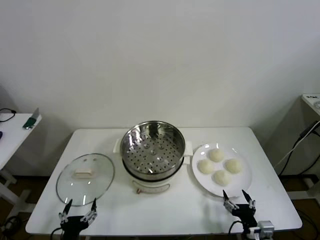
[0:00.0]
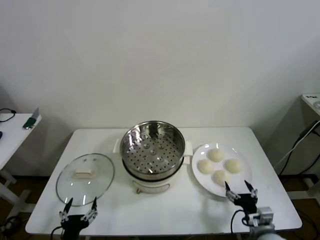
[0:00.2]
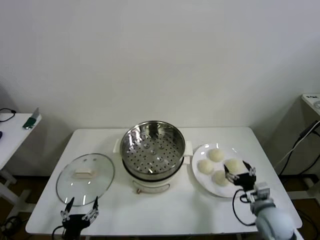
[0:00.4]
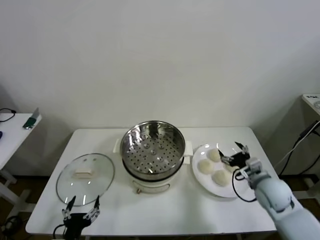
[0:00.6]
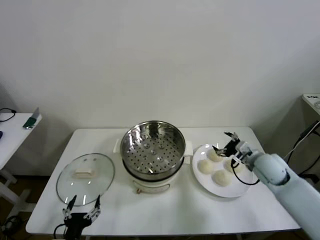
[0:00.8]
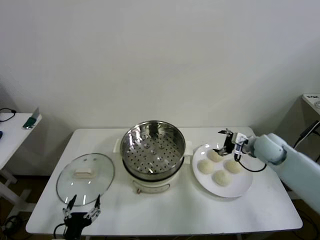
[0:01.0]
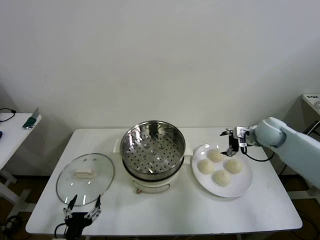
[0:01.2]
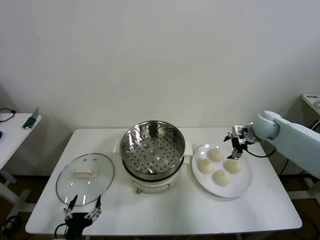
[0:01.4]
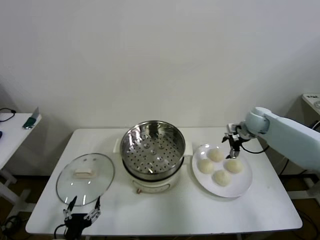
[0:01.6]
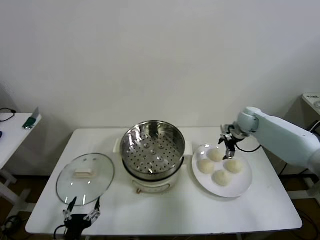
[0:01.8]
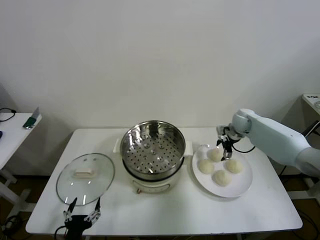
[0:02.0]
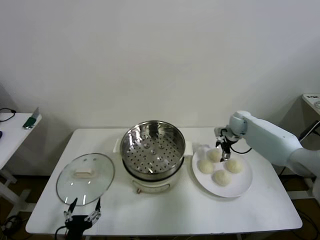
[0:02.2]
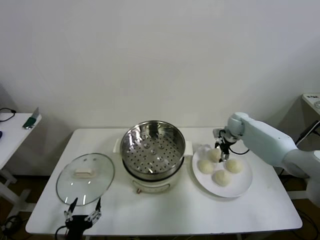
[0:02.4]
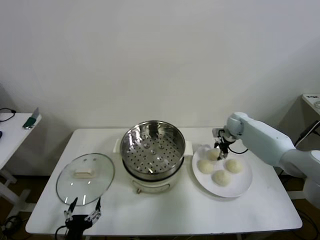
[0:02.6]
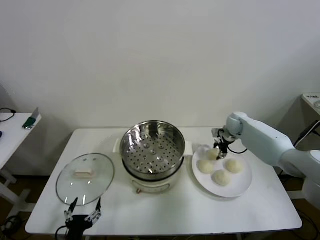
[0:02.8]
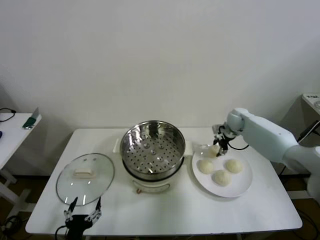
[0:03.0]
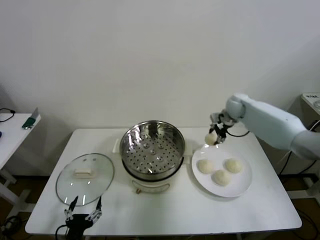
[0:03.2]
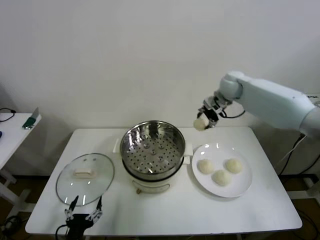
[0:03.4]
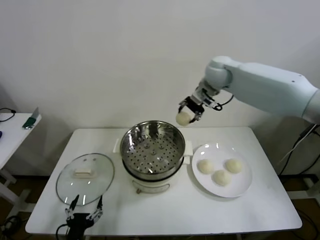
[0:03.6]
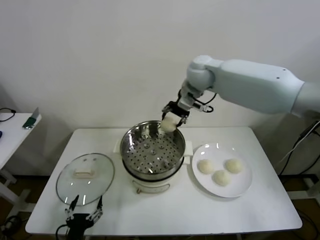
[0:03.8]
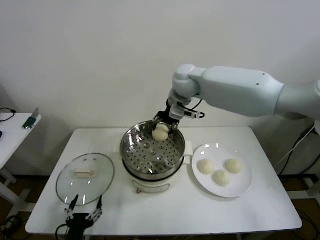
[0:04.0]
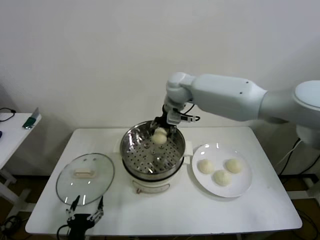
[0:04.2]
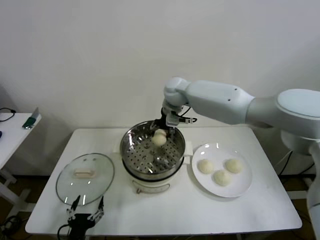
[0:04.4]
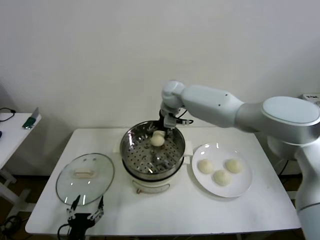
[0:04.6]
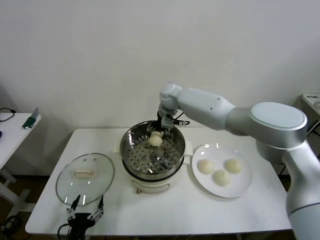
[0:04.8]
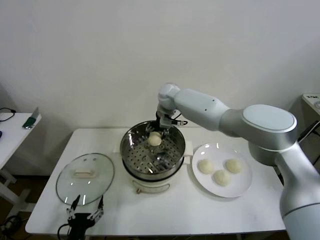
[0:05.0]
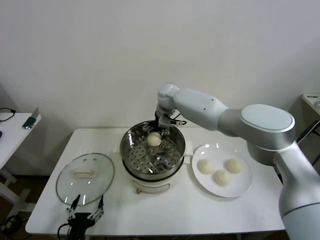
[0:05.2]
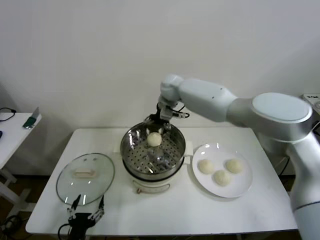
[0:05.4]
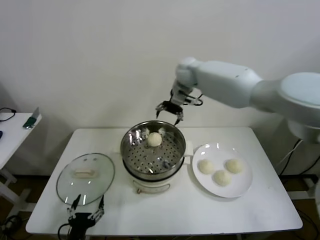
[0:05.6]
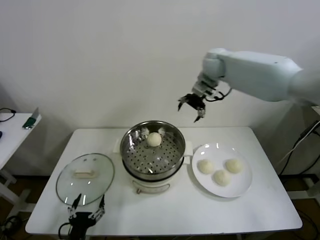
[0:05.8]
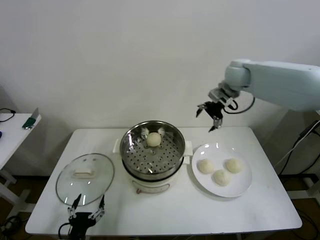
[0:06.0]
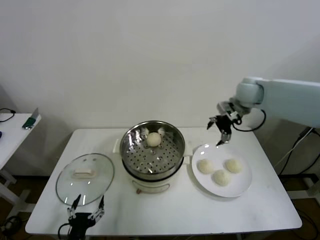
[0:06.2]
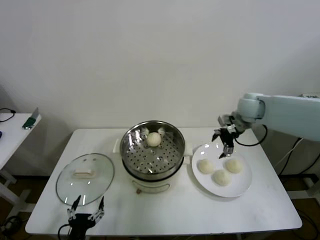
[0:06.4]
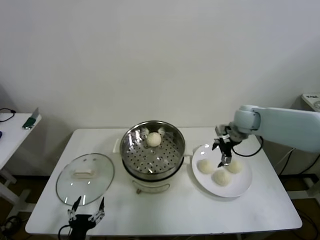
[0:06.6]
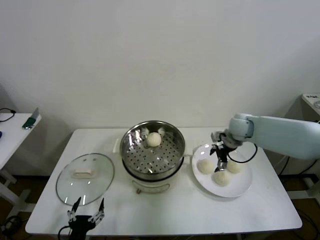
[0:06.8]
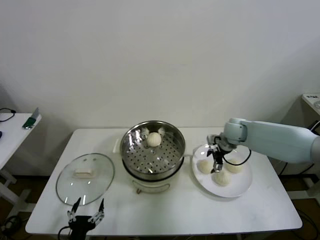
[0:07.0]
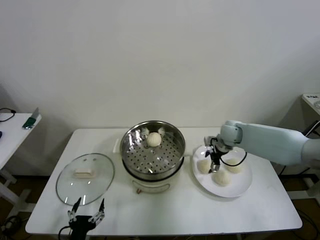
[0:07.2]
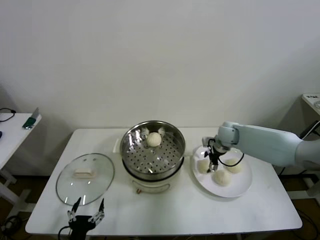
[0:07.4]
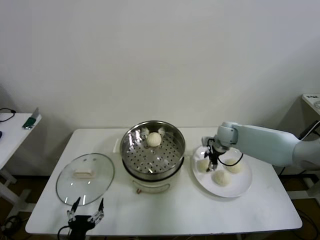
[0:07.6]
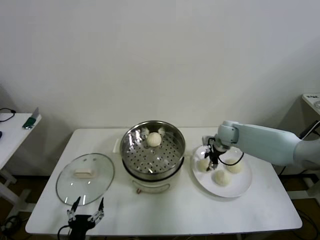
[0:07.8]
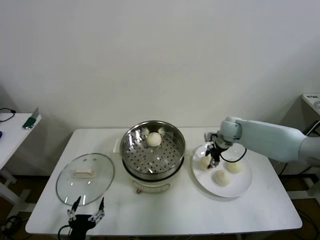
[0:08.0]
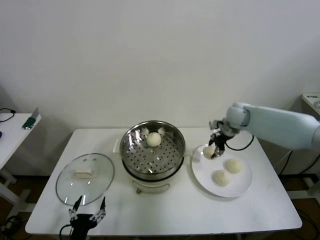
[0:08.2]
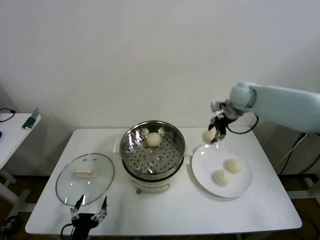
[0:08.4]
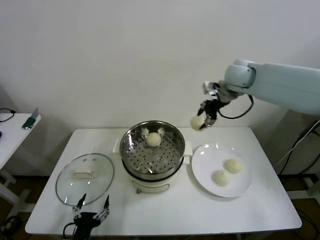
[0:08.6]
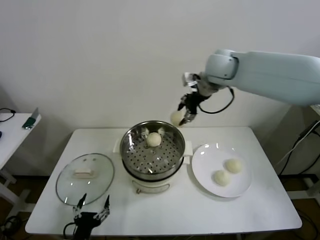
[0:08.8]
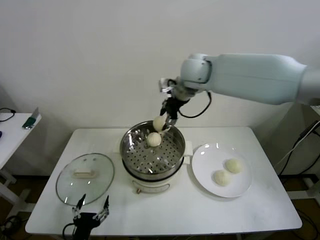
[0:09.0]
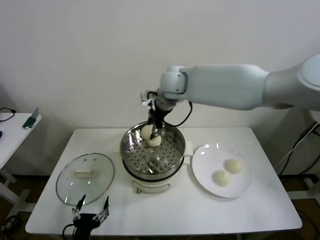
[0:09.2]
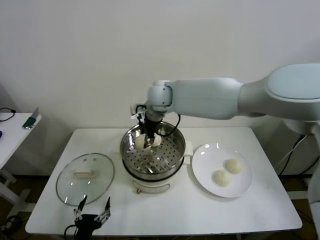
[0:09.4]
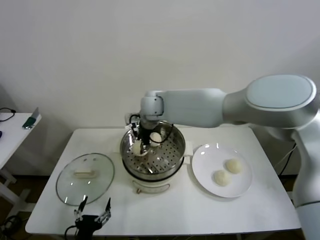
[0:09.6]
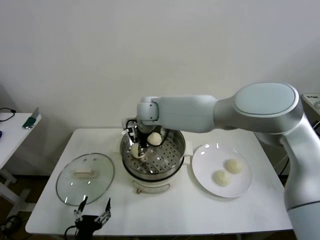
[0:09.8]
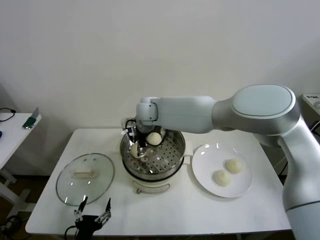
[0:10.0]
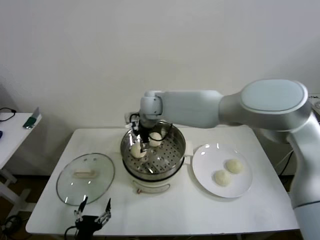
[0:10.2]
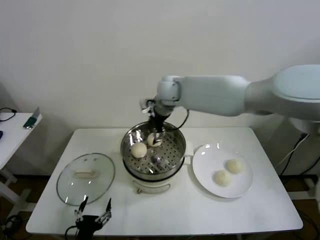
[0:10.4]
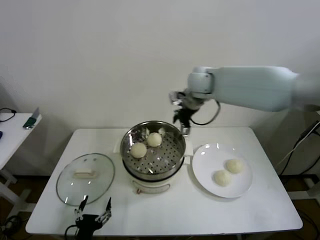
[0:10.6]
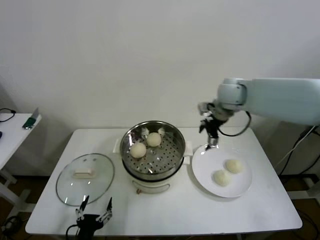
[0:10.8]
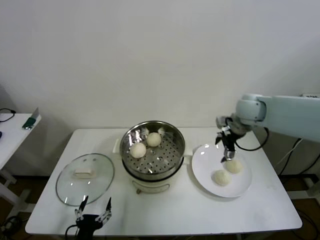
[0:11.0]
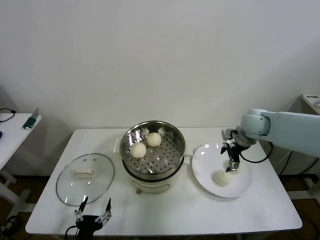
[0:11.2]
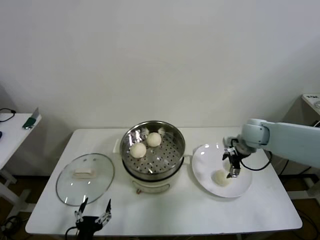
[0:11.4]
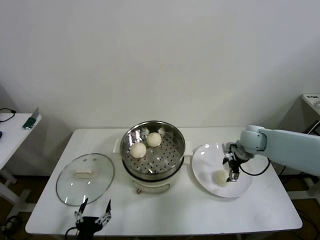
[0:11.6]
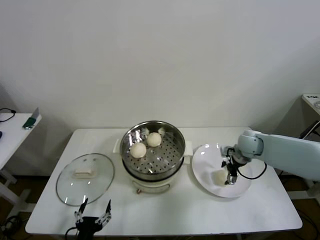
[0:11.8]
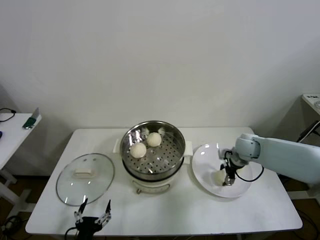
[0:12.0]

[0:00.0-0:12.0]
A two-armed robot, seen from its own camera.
Step, 0:00.0 to 0:02.6: Grasp the baozi in the plate with right gripper.
Step, 0:02.8 to 0:05.0: Place the baozi on the steamer with right gripper.
Step, 0:05.2 to 0:07.6: Grasp the baozi in the plate with right gripper.
Step, 0:08.0 to 0:10.0: Place the baozi on the steamer with right gripper.
0:01.6 to 0:03.0: The right gripper ends up approximately 5 cm from where it was, and closes.
0:03.0 to 0:04.4: The right gripper shifts some 30 cm to the left and upward.
0:04.4 to 0:06.0: The right gripper heads to the right, covering approximately 25 cm, and opens.
0:06.0 to 0:07.6: The right gripper moves downward, some 20 cm, and closes its fingers.
0:07.6 to 0:09.0: The right gripper is displaced upward and to the left by some 35 cm.
0:09.0 to 0:10.4: The right gripper travels downward by about 5 cm, and opens its fingers.
0:10.4 to 0:12.0: The right gripper travels to the right and downward by some 35 cm.

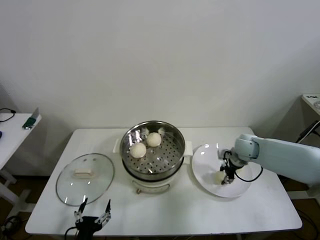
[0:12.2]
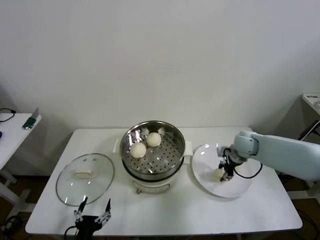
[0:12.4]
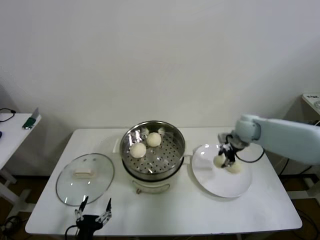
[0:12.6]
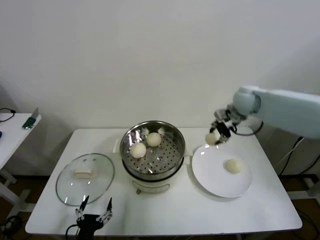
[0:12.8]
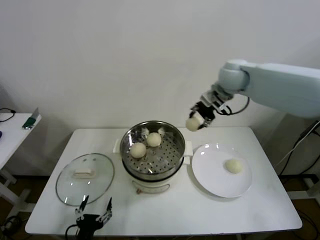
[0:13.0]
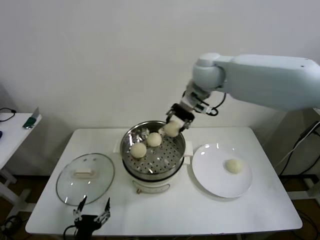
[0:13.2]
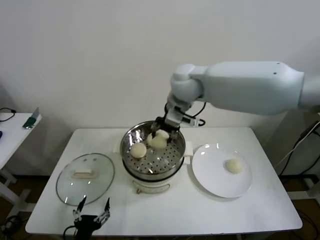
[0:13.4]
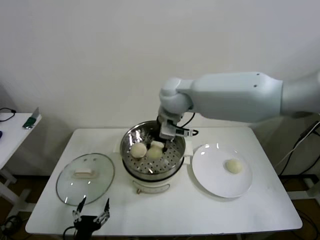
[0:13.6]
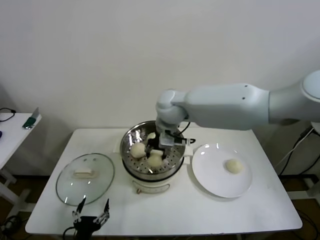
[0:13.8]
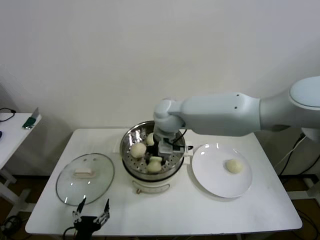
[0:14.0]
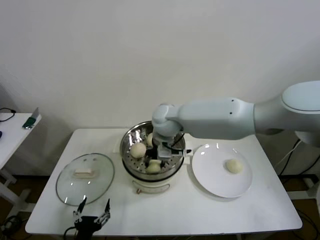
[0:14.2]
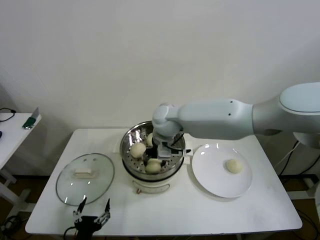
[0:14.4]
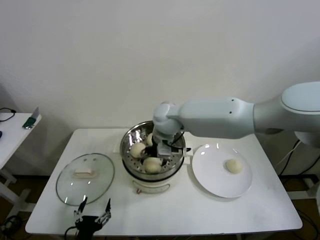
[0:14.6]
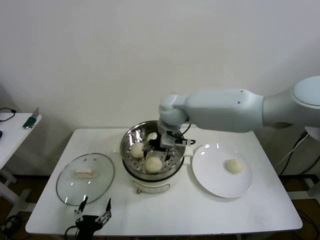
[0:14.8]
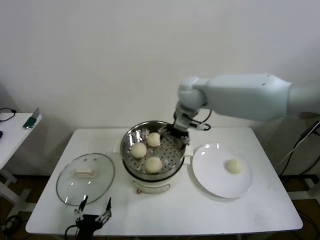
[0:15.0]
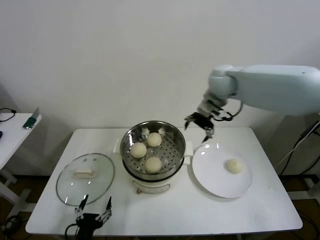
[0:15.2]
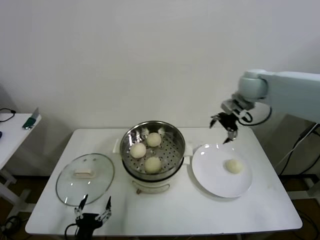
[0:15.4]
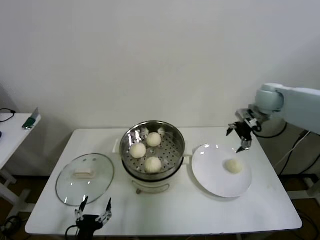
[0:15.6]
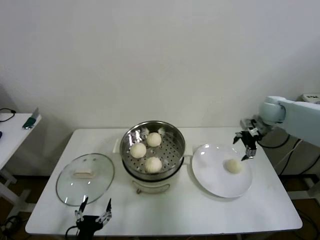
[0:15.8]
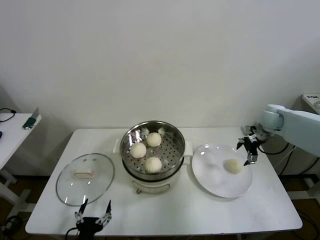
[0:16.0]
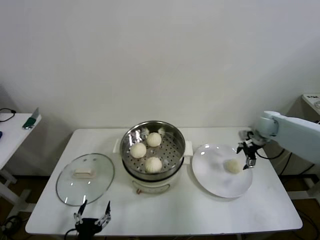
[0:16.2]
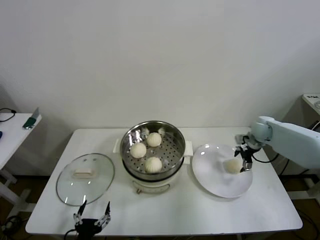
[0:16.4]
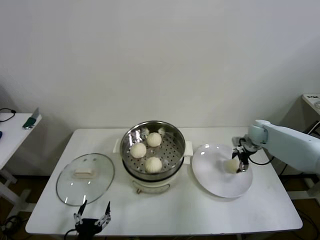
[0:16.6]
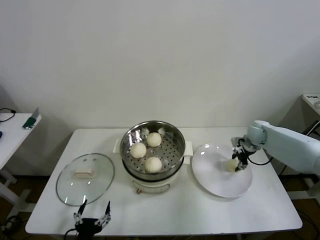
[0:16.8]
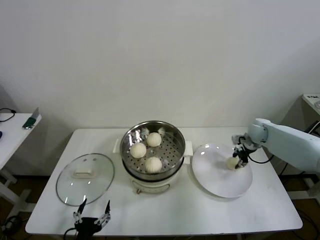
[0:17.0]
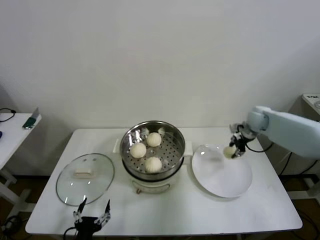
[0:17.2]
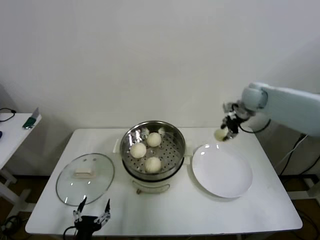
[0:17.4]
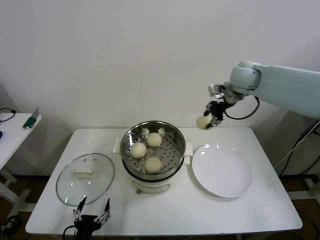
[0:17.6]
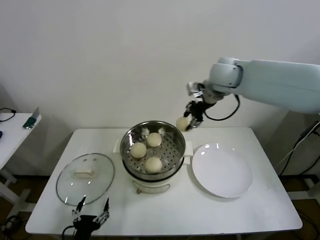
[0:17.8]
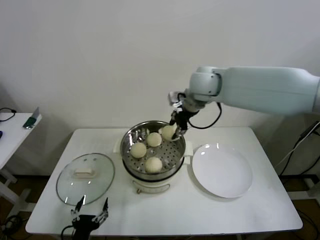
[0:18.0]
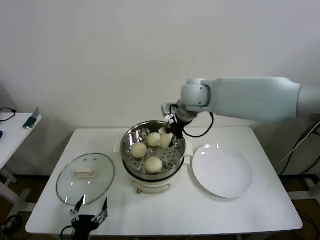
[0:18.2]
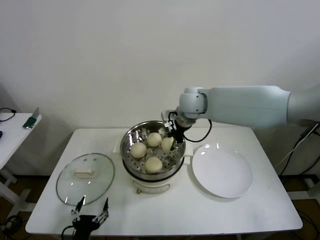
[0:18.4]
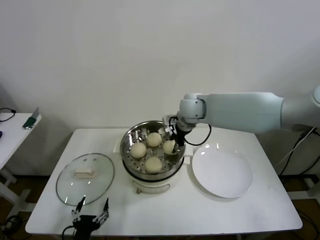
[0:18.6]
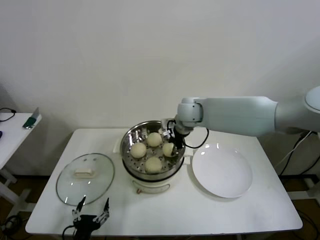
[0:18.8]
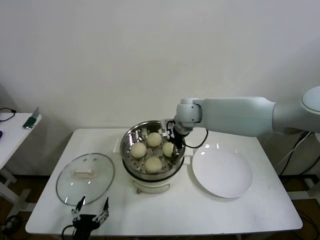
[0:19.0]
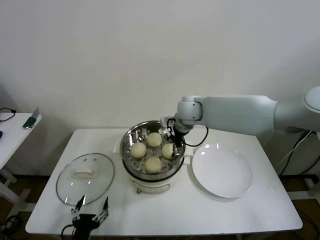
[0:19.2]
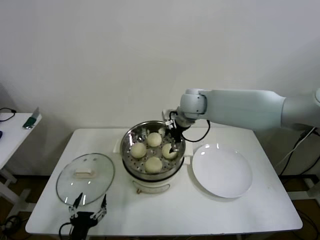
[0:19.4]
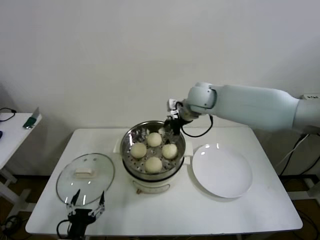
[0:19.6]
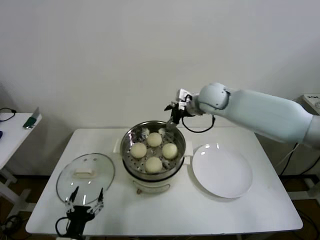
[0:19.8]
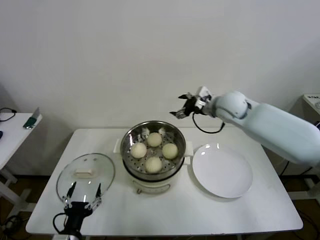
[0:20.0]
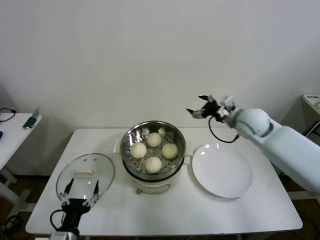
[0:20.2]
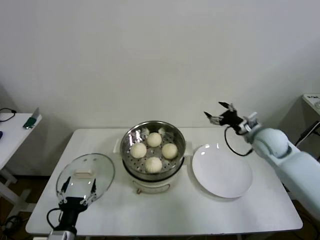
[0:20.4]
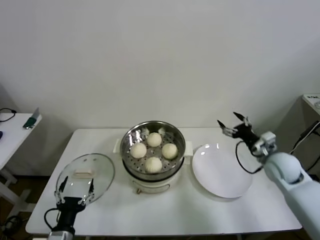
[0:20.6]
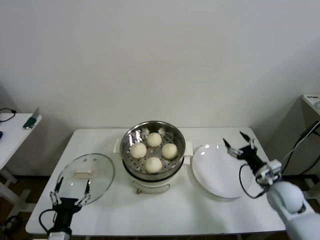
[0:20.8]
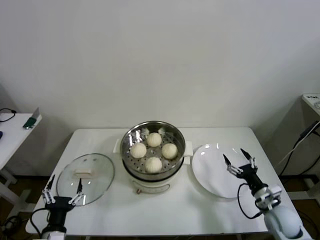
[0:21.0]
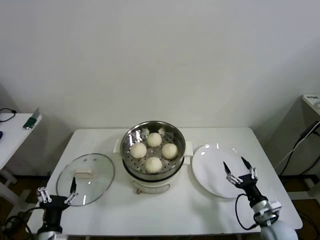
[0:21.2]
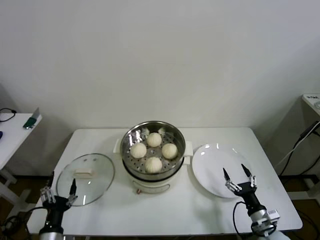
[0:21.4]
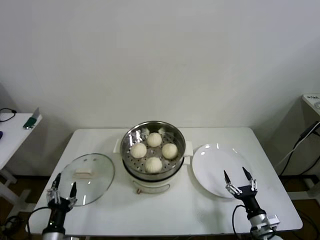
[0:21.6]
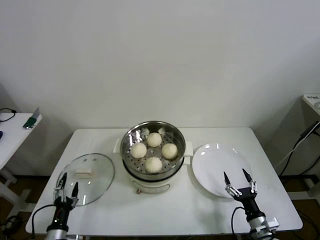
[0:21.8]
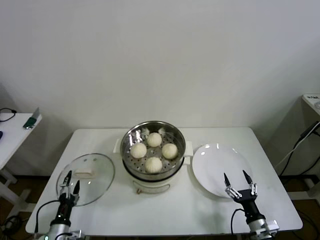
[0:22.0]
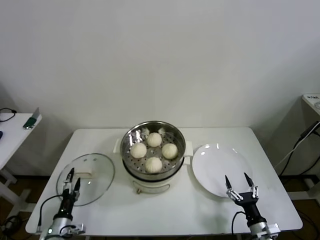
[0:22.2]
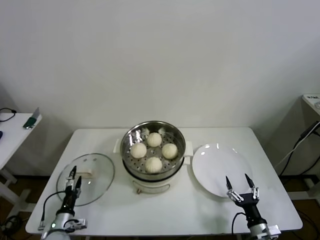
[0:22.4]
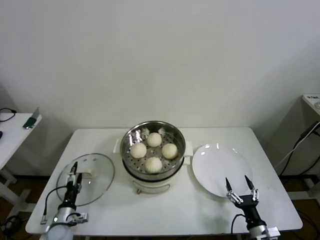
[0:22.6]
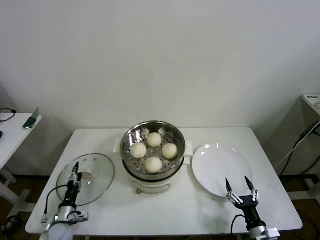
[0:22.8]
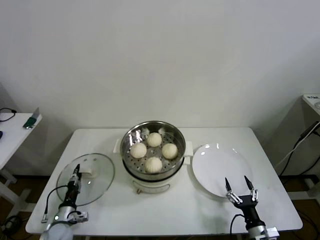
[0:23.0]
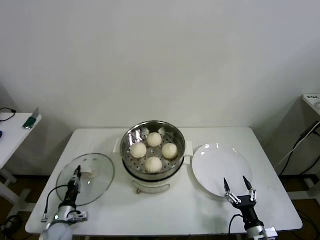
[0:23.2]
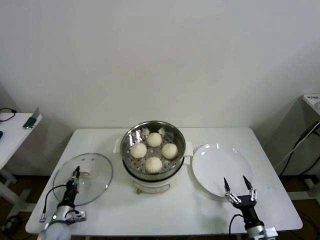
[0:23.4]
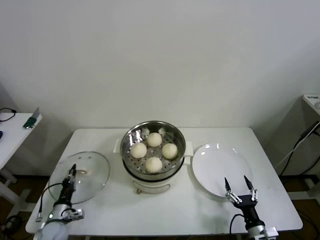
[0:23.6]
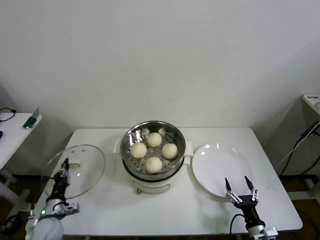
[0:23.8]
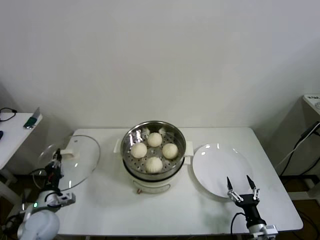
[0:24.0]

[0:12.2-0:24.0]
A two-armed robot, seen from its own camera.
Step, 0:12.4 to 0:14.4: Place the baozi on the steamer with right gripper.
Step, 0:14.6 to 0:16.8: Grasp the baozi in the plate with right gripper.
Step, 0:17.0 to 0:19.0: Place the baozi on the steamer with right gripper.
Step, 0:19.2 to 0:23.2: Grasp the pot lid with left gripper.
0:12.2 to 0:13.6: The right gripper goes approximately 35 cm to the left and upward.
0:13.6 to 0:15.2: The right gripper heads to the right, covering roughly 15 cm, and opens its fingers.
0:15.2 to 0:16.6: The right gripper moves downward and to the right, roughly 30 cm.
0:16.6 to 0:18.2: The right gripper moves to the left and upward, roughly 35 cm, and closes up.
0:18.2 to 0:19.6: The right gripper opens its fingers.
0:19.6 to 0:21.0: The right gripper is displaced downward, backward and to the right by about 50 cm.
0:21.0 to 0:22.6: The right gripper heads backward and downward, covering approximately 15 cm, while the left gripper moves downward, forward and to the left, about 20 cm.
0:22.6 to 0:24.0: The left gripper goes some 10 cm upward, and closes.
